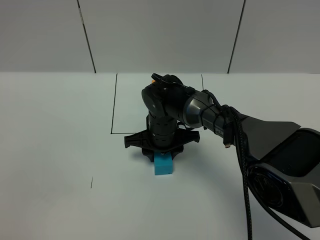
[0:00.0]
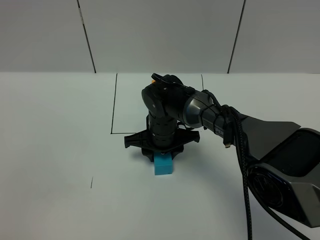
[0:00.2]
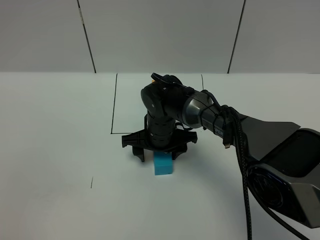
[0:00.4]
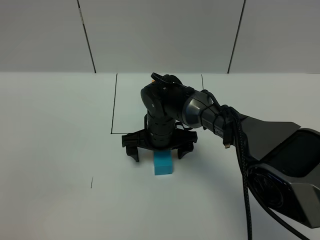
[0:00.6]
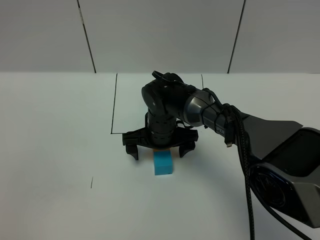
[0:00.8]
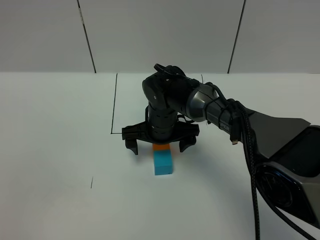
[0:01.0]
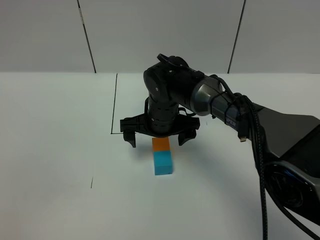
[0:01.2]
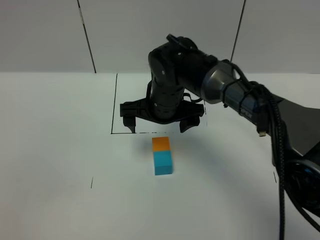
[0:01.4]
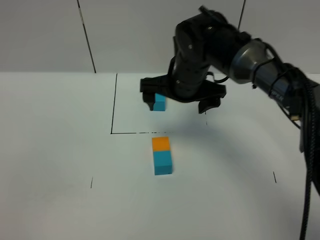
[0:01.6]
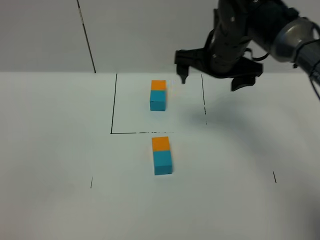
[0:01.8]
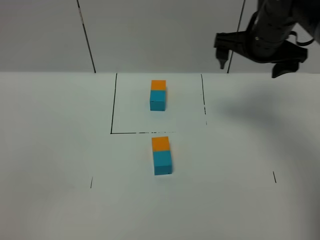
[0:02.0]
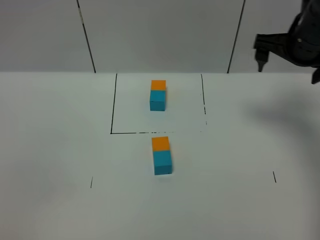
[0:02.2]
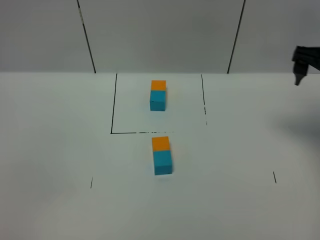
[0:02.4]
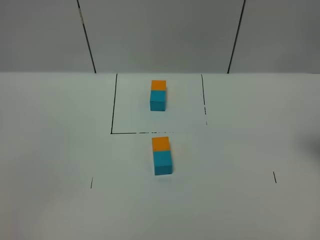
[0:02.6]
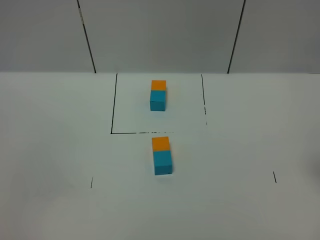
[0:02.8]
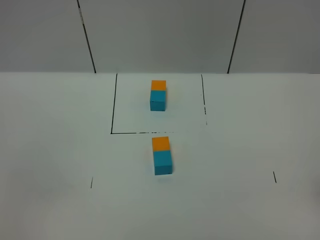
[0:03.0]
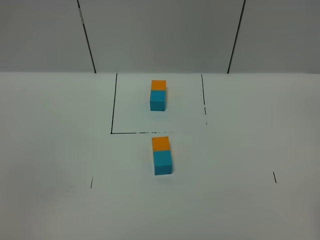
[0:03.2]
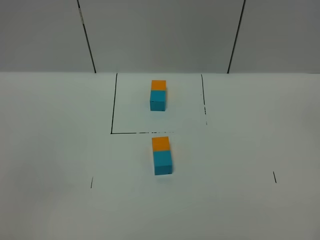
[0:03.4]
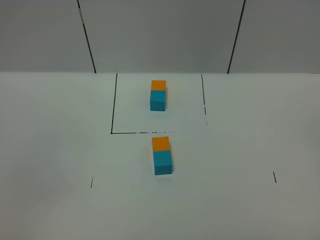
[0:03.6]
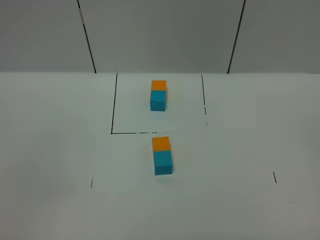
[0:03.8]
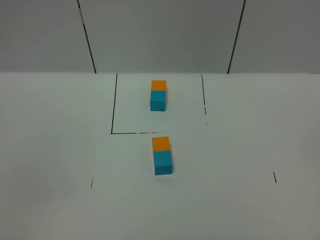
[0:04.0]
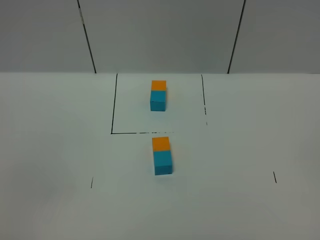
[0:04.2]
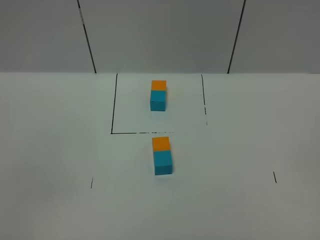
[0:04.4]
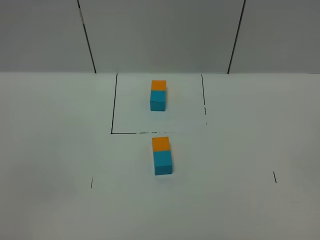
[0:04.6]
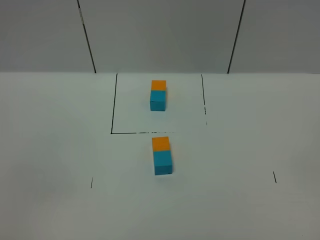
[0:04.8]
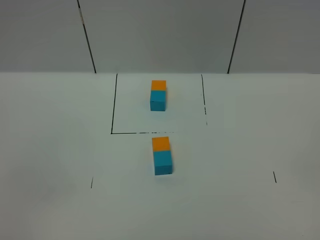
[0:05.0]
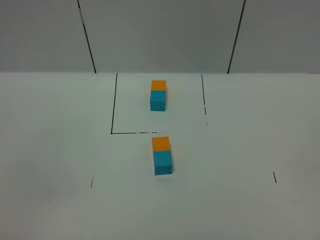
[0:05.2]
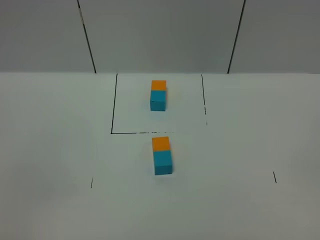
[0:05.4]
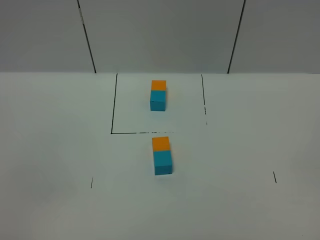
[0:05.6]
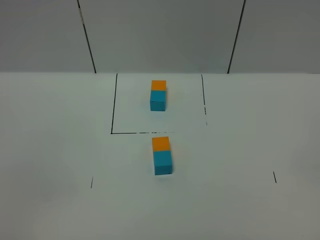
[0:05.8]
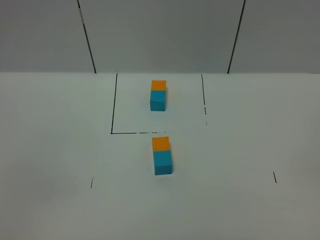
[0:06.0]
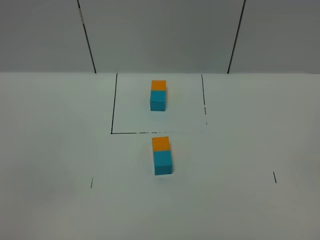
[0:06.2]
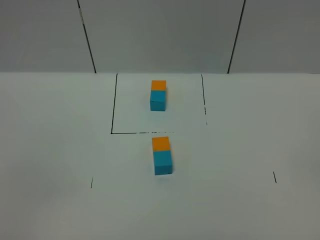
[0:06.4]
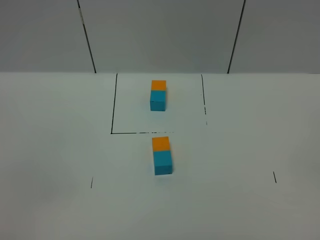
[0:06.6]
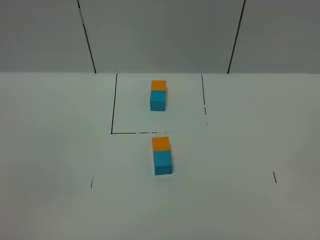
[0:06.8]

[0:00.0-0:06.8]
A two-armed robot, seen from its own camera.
Task of the whole recording: According to the building block template in front, assemble the scattered blocks together.
0:00.0 to 0:01.4: The right gripper travels upward by roughly 10 cm, and opens its fingers.
0:01.4 to 0:02.8: The right gripper moves to the right and backward, approximately 35 cm.
0:05.4 to 0:06.8: Both grippers stay about where they are.

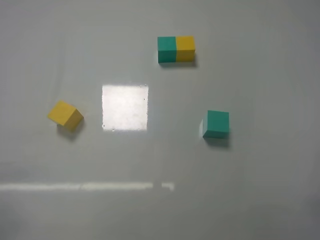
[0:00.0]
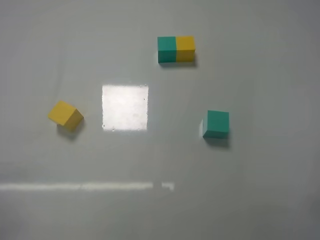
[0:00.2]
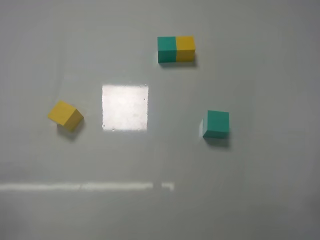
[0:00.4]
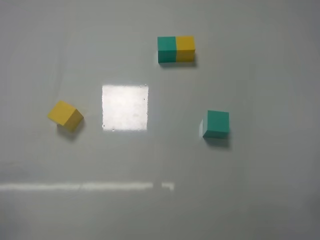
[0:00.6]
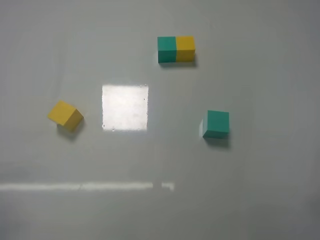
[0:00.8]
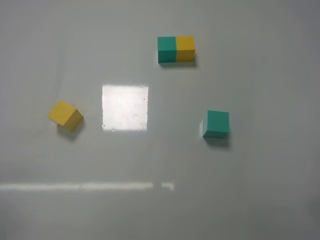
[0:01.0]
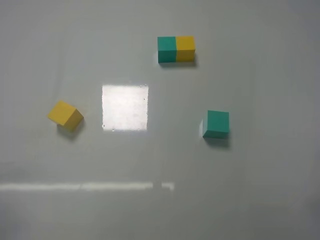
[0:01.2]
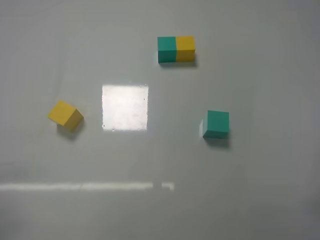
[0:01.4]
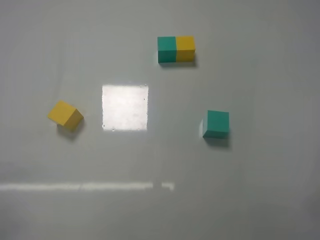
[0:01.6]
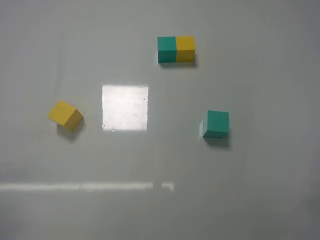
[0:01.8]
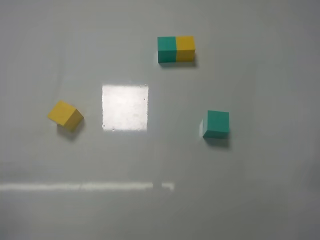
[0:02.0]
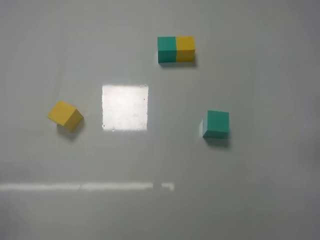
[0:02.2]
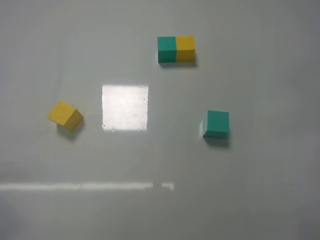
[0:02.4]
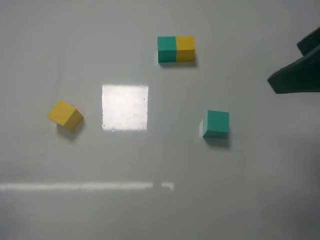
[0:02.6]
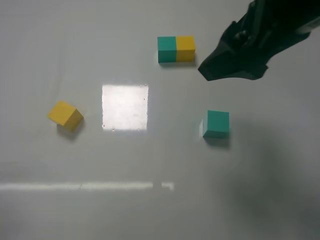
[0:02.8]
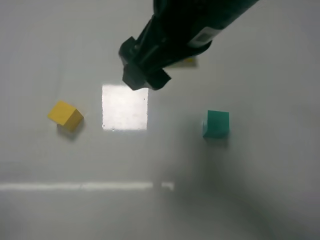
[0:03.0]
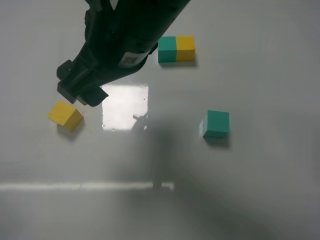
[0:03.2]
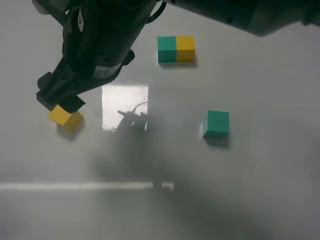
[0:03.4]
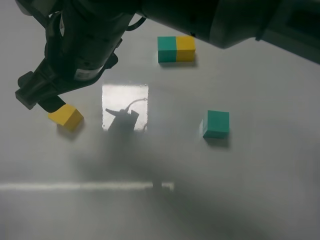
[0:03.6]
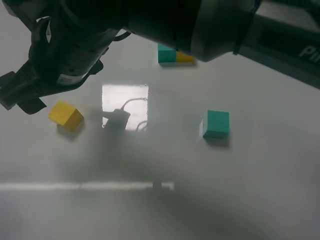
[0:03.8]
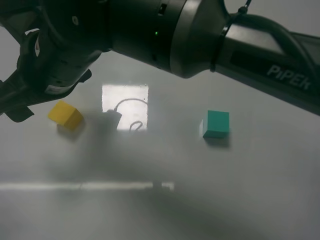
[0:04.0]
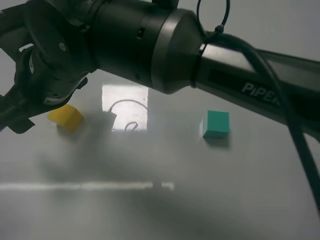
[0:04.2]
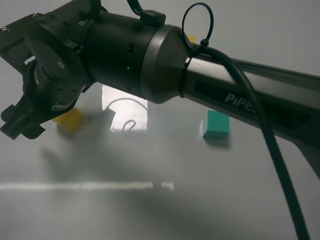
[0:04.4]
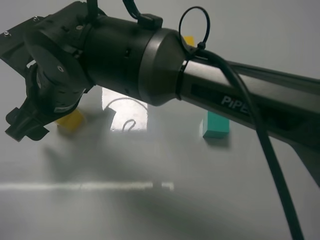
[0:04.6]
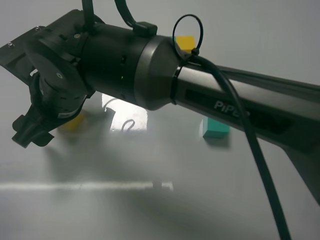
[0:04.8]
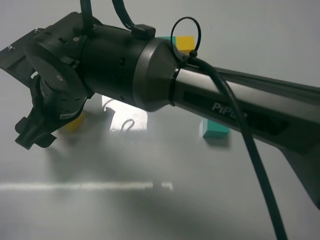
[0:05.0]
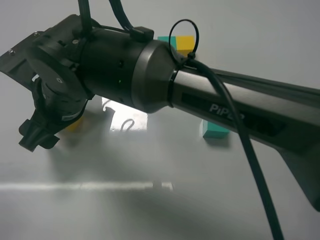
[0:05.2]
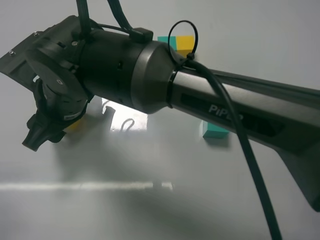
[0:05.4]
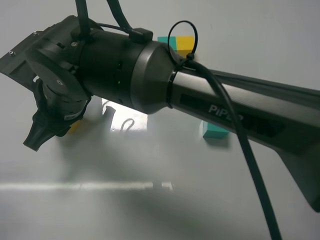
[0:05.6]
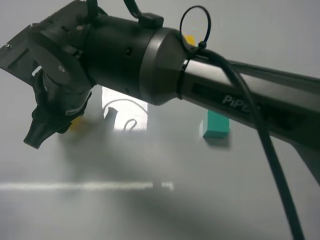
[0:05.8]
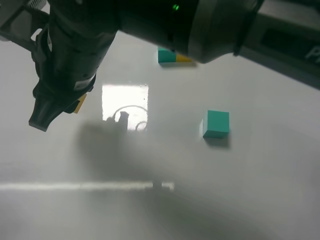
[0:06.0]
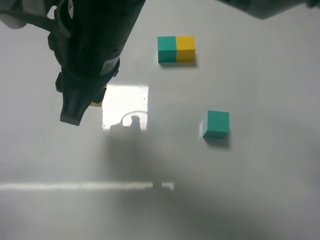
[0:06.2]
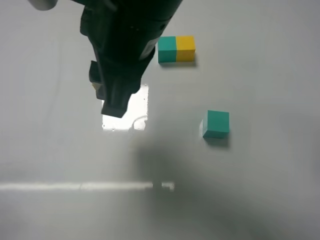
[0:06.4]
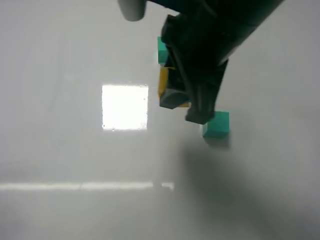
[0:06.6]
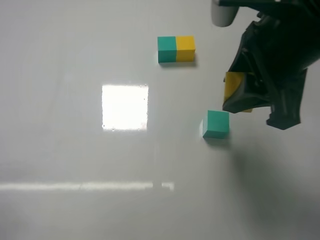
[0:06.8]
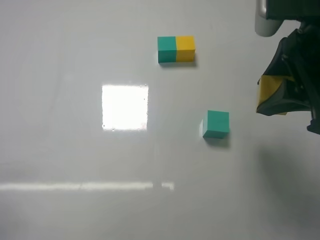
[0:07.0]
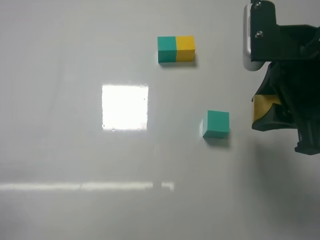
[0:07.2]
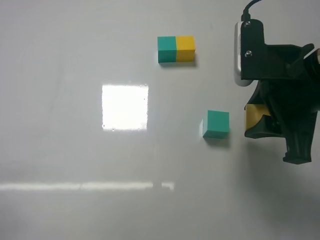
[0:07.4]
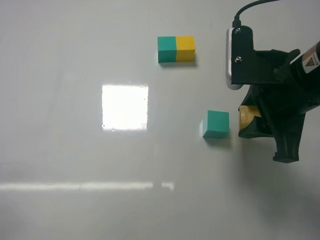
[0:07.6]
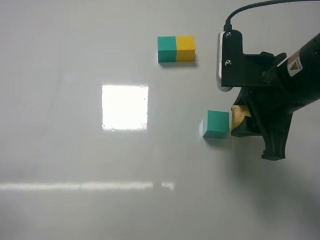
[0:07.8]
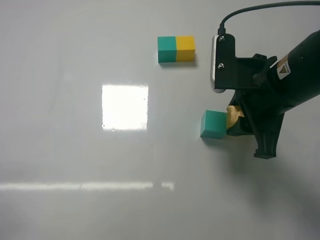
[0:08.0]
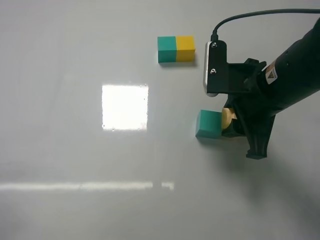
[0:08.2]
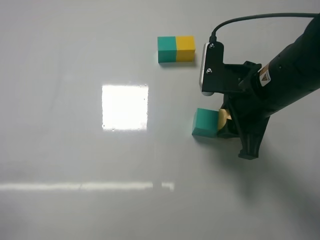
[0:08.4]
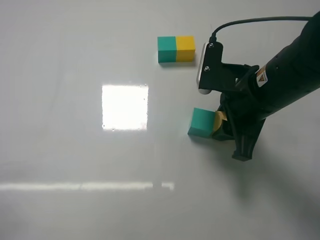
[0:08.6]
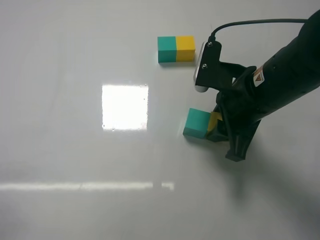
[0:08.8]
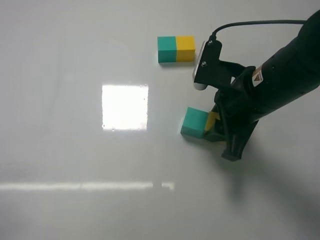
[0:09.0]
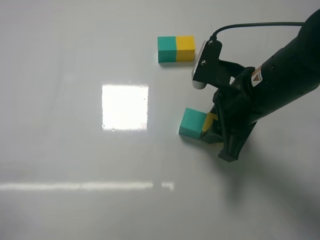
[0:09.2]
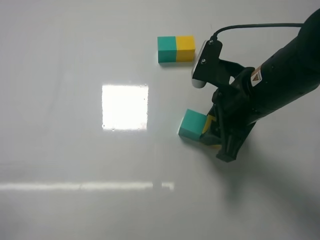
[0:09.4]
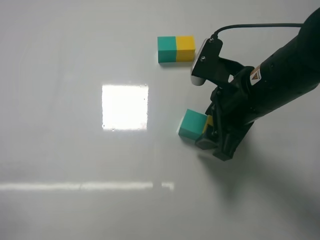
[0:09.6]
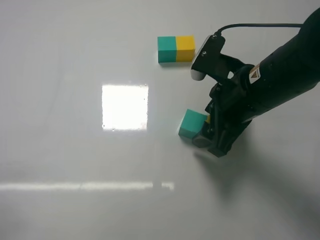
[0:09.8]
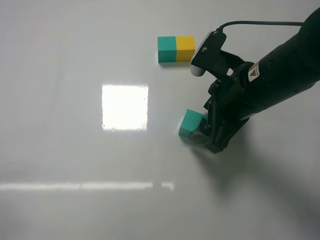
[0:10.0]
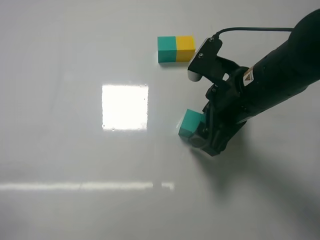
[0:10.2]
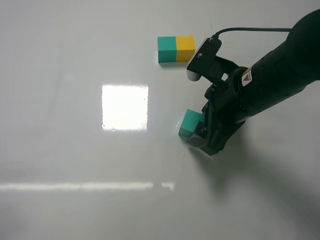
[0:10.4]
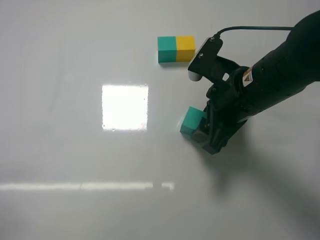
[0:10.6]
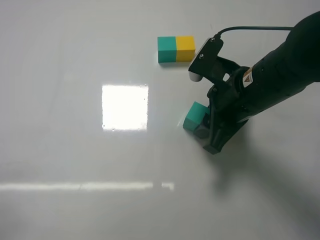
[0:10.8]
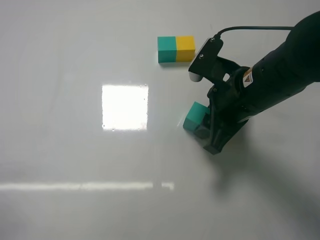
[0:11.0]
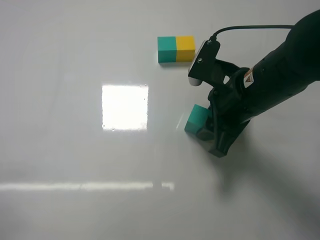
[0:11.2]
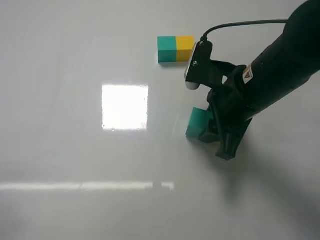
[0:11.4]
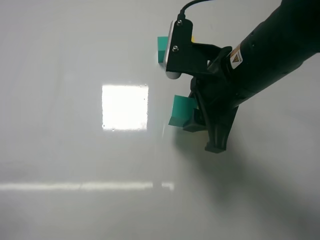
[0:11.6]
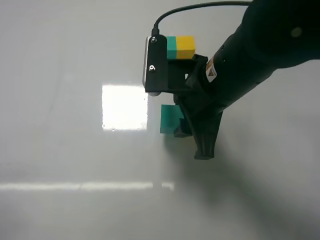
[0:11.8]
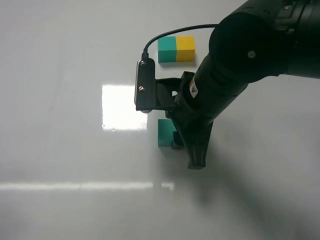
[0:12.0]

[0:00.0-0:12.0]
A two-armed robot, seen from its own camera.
Task of the whole recording: According to the building block template in front, assemble the scattered blocks together.
Step, 0:00.0 to 0:05.4: Grasp the yellow block with right gripper.
Step, 0:05.6 to 0:10.0: Put the green cube on the right of the yellow cube with the right gripper.
0:00.0 to 0:01.6: Both grippers stay about where they are.
0:01.6 to 0:03.0: The right gripper shifts roughly 35 cm to the left, forward and upward.
0:03.0 to 0:04.4: The right gripper is displaced to the left and downward by some 20 cm.
0:04.4 to 0:06.0: The right gripper shifts by approximately 5 cm, and closes its fingers.
0:06.0 to 0:07.6: The right gripper moves to the right, approximately 25 cm.
0:07.6 to 0:09.0: The right gripper shifts by some 5 cm.
0:09.0 to 0:10.4: The right gripper opens up.
0:10.4 to 0:12.0: The right gripper moves to the left, some 5 cm, and closes.

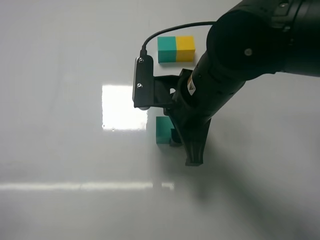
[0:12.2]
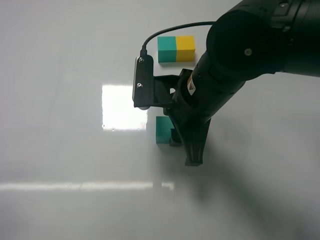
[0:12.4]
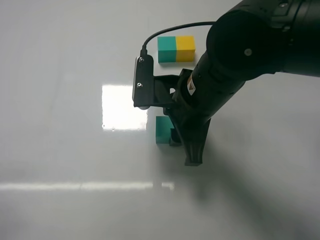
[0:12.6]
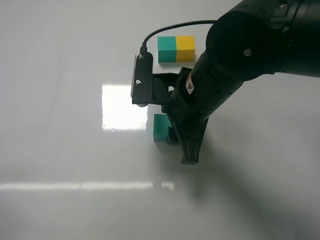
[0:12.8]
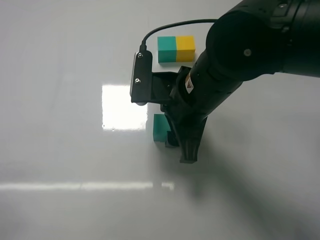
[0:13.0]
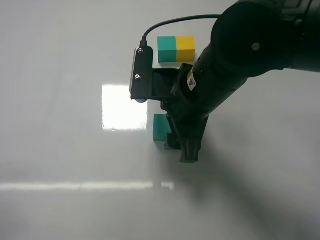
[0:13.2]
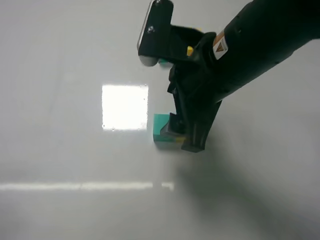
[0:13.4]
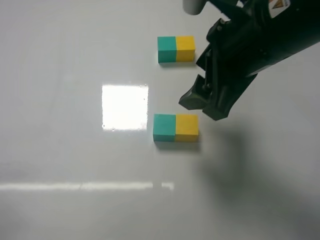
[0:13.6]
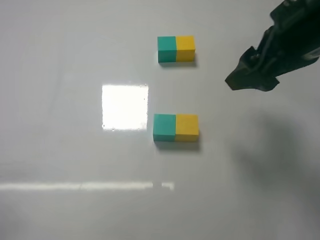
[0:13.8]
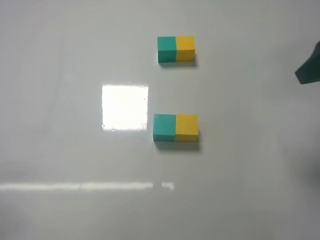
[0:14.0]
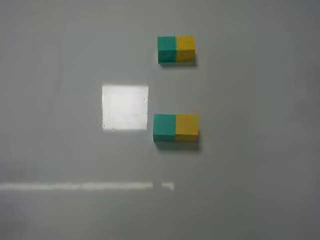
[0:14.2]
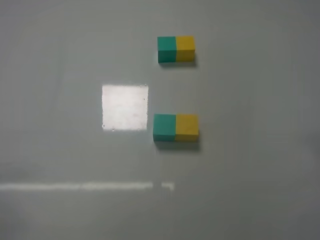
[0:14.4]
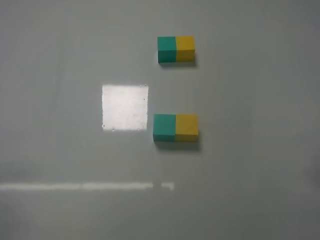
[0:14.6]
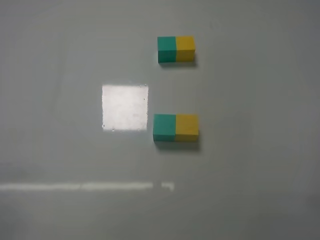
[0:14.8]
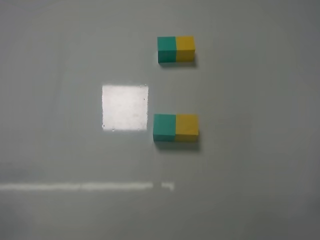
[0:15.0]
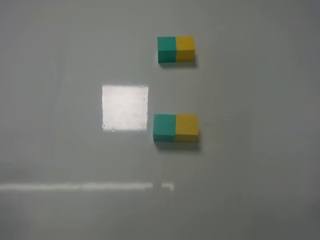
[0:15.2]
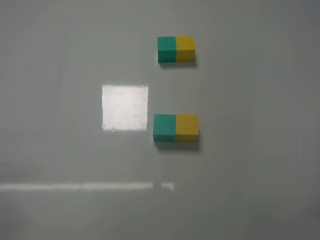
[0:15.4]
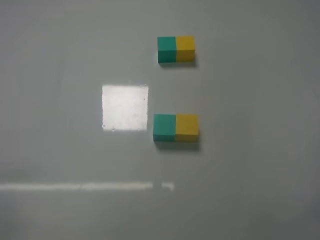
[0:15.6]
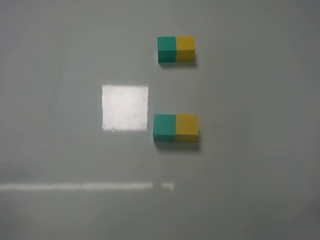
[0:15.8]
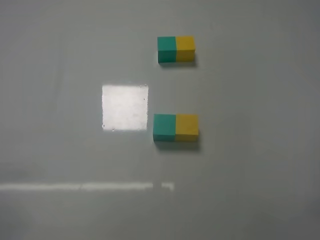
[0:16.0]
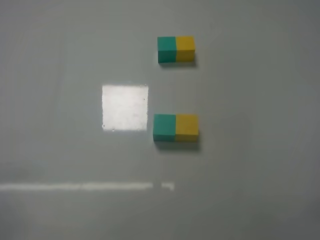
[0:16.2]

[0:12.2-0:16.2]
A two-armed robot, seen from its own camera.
Task of the whole recording: According to the building block template in front, assemble the scattered blocks together.
0:12.2 to 0:13.6: The right gripper is displaced upward and to the right by some 10 cm, and opens its fingers.
0:13.6 to 0:14.8: The right gripper heads to the right, backward and downward, covering some 30 cm.
